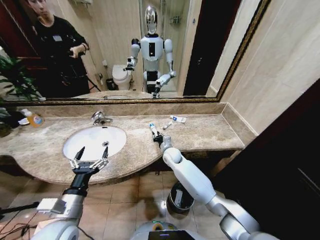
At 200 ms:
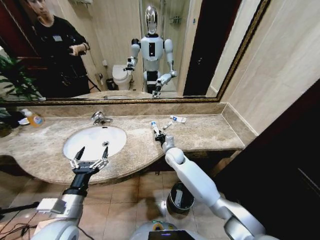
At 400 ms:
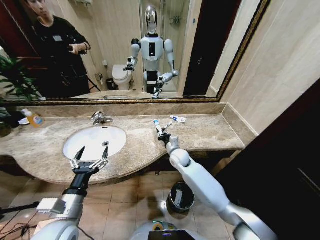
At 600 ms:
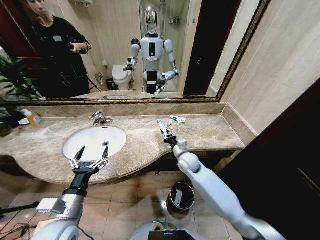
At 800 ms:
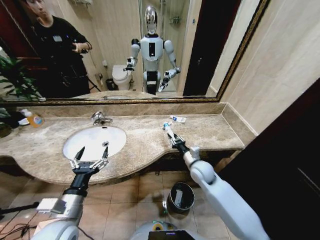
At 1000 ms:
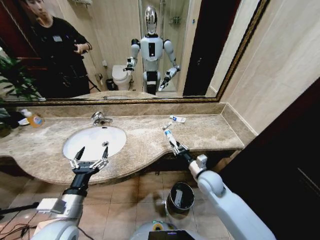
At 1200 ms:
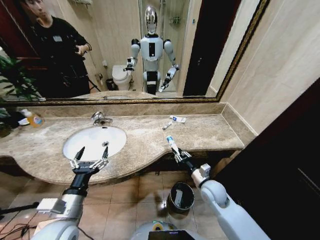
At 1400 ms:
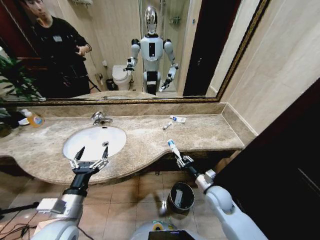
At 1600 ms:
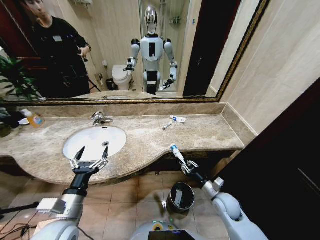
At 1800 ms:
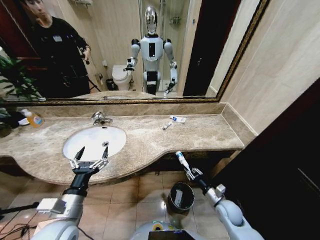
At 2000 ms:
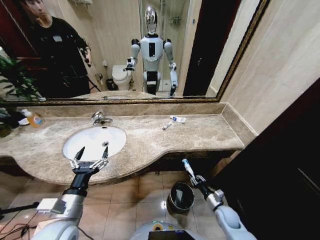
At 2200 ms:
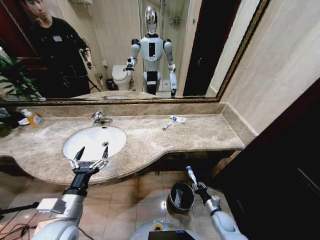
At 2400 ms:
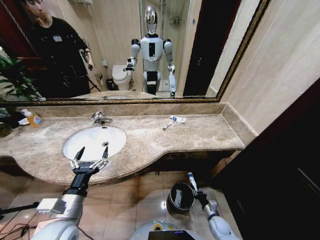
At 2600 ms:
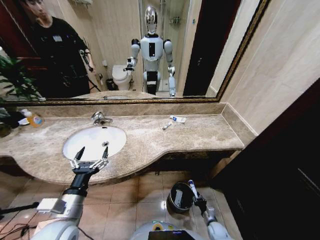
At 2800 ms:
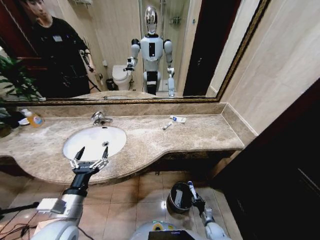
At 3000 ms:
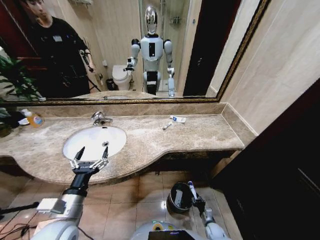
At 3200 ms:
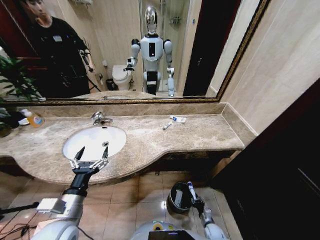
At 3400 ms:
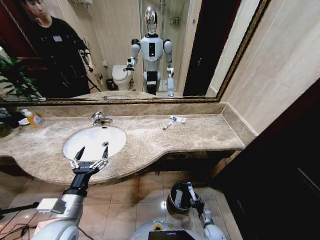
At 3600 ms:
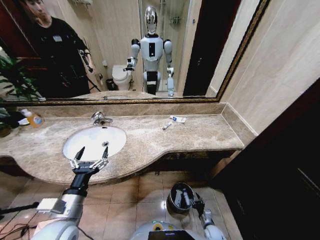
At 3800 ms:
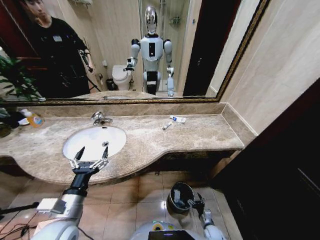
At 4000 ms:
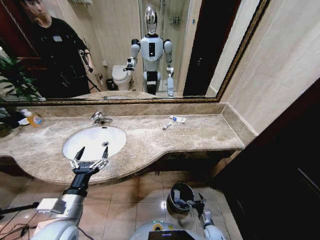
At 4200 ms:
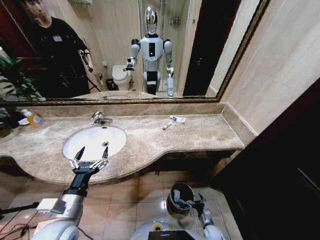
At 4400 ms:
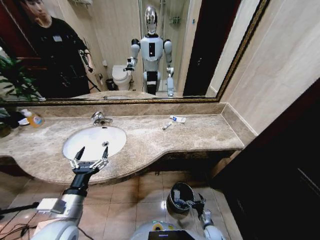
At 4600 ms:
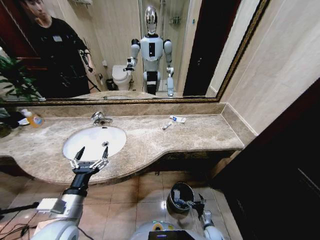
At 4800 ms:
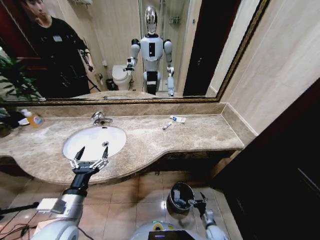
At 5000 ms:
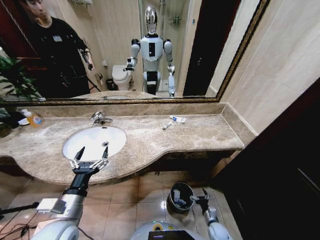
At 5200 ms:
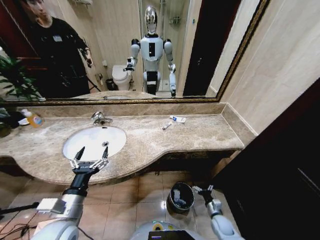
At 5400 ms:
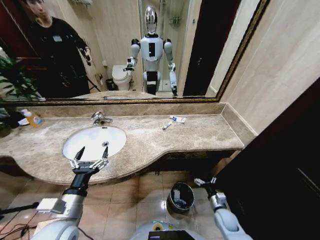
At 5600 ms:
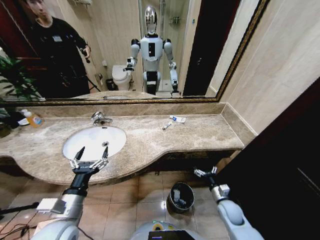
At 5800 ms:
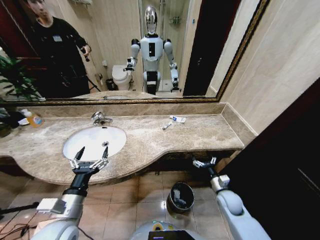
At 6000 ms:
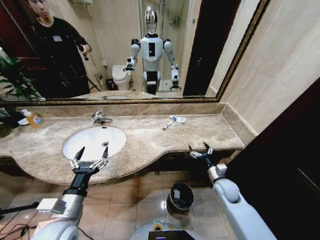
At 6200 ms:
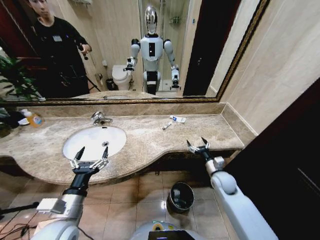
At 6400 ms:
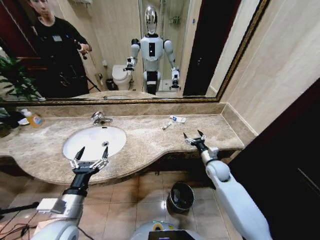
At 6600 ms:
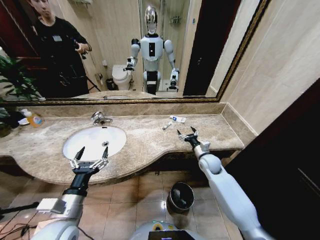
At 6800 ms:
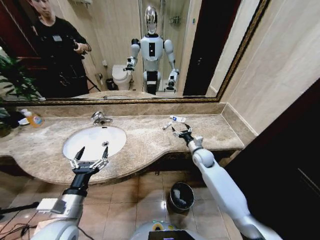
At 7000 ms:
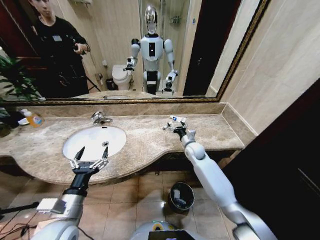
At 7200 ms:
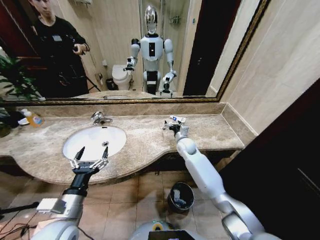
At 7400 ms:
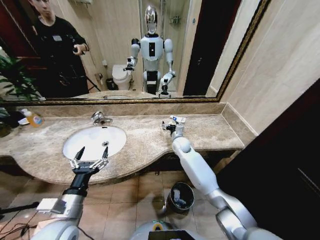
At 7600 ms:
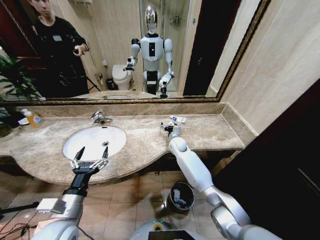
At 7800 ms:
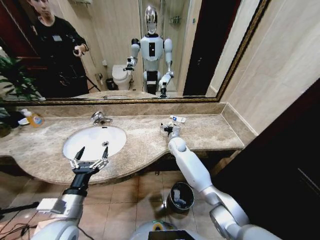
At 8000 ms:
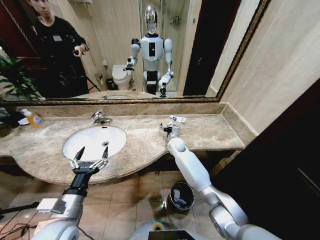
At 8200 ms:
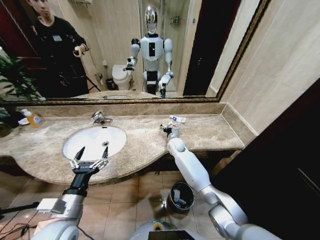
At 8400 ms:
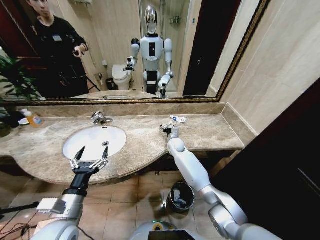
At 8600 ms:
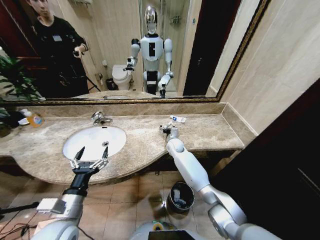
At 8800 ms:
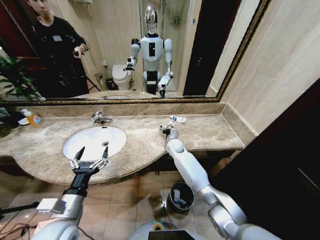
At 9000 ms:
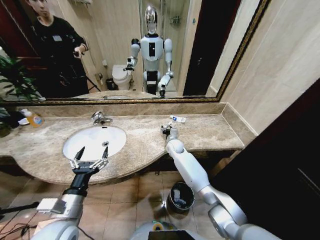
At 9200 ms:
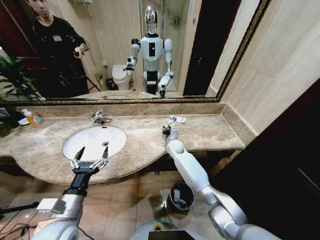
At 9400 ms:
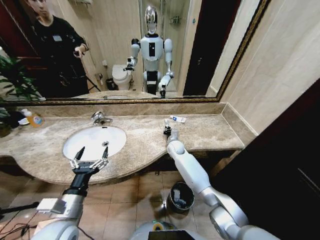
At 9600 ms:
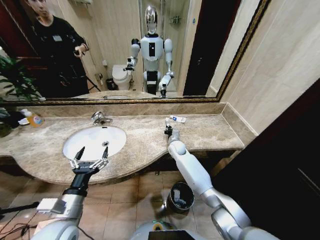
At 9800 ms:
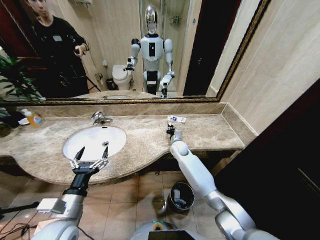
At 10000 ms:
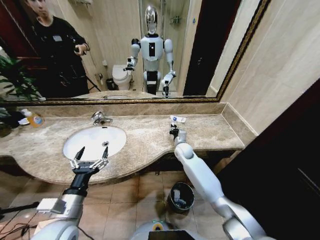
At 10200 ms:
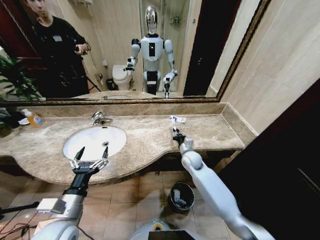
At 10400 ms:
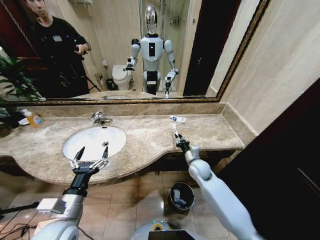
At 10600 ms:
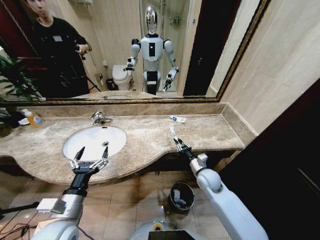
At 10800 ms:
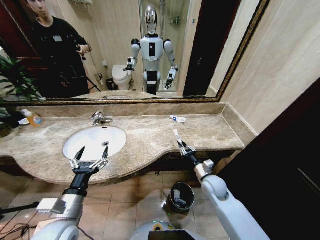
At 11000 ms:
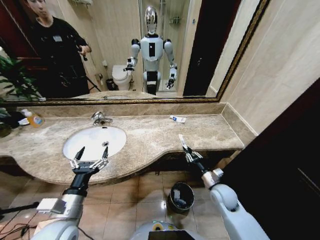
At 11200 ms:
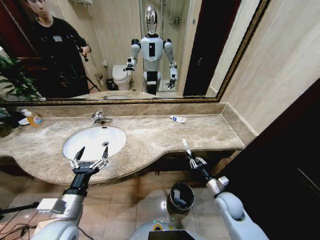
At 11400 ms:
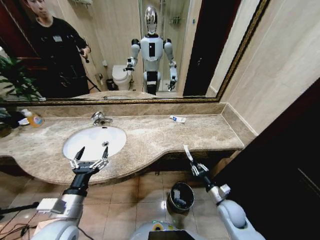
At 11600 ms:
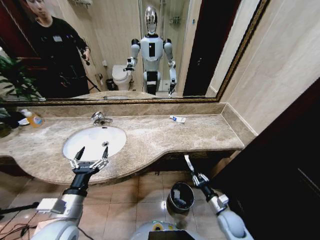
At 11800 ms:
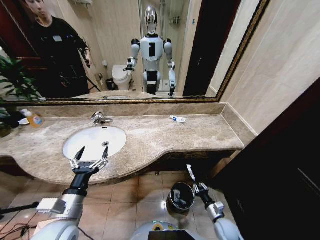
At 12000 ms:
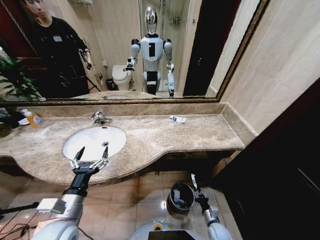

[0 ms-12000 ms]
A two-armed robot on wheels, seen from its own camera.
Task of the whole recording: Pick up the trash from the sink and place it in the trash bin.
0 ms to 1600 ms: The right gripper travels backward and to the right by approximately 30 cm.
1600 ms to 3000 ms: The right gripper shifts about 30 cm downward.
3000 ms to 4400 ms: The right gripper opens its fingers.
4400 ms to 6000 ms: The right gripper moves upward and forward, about 35 cm.
6000 ms to 7600 ms: The right gripper shifts some 30 cm forward and to the left.
7600 ms to 9000 ms: The grippers move only a little.
9000 ms to 10400 ms: The right gripper is displaced backward and to the right by some 15 cm, and closes.
10400 ms to 12000 ms: The right gripper shifts about 35 cm downward and backward.

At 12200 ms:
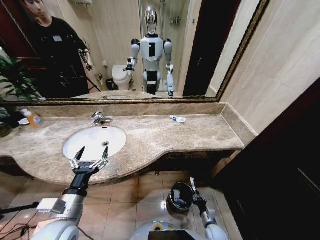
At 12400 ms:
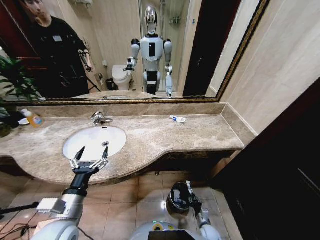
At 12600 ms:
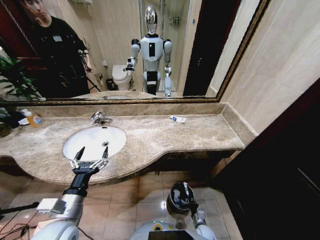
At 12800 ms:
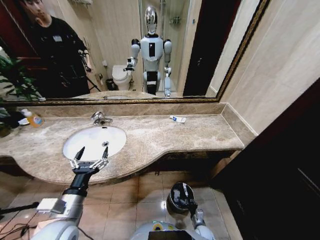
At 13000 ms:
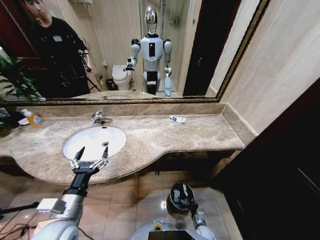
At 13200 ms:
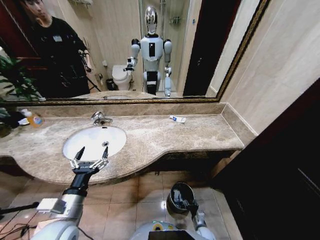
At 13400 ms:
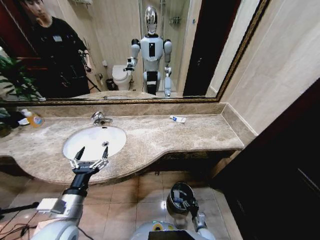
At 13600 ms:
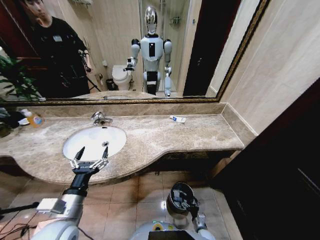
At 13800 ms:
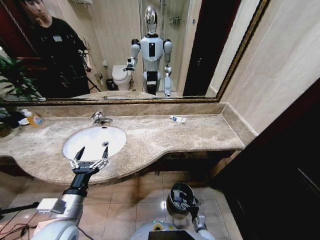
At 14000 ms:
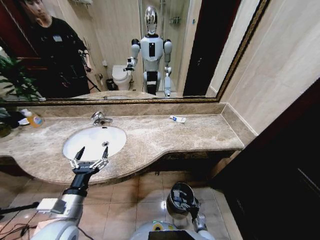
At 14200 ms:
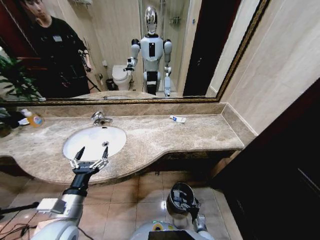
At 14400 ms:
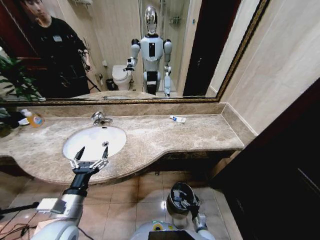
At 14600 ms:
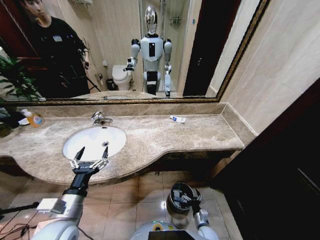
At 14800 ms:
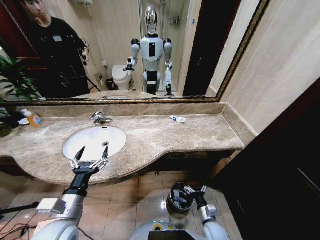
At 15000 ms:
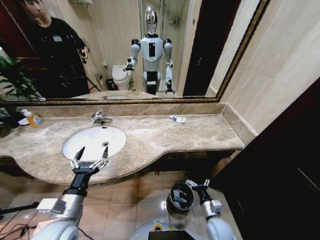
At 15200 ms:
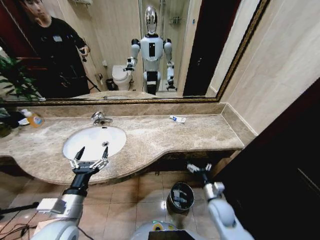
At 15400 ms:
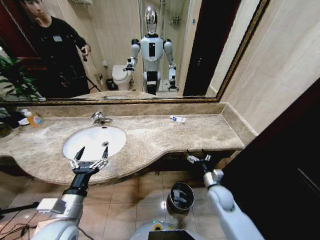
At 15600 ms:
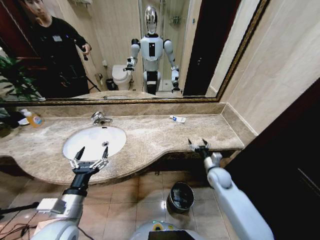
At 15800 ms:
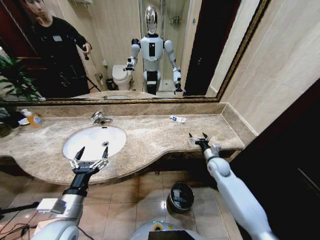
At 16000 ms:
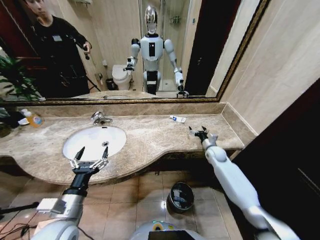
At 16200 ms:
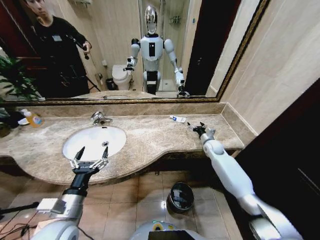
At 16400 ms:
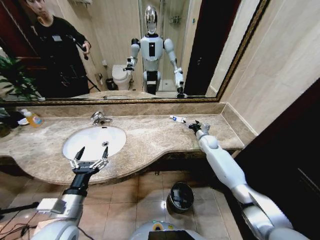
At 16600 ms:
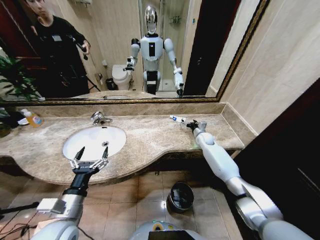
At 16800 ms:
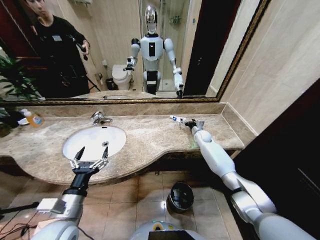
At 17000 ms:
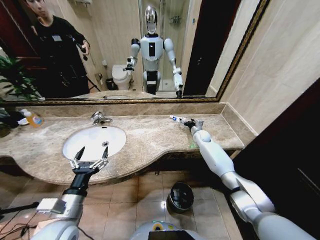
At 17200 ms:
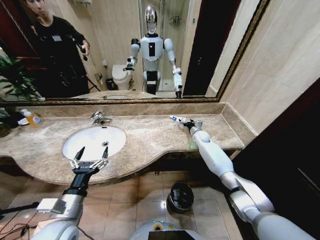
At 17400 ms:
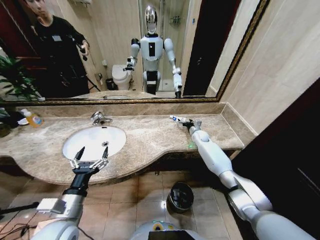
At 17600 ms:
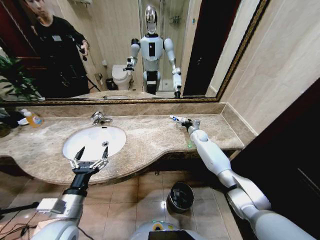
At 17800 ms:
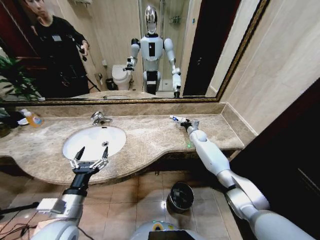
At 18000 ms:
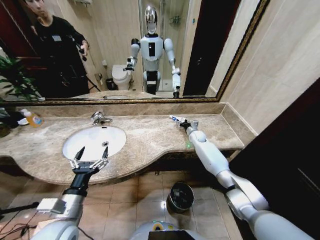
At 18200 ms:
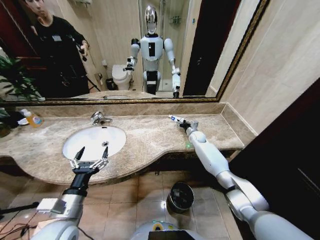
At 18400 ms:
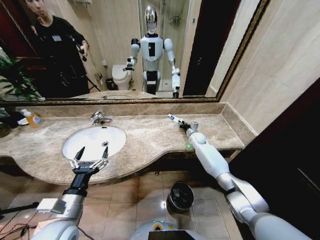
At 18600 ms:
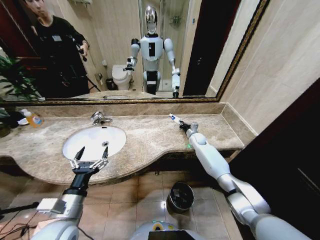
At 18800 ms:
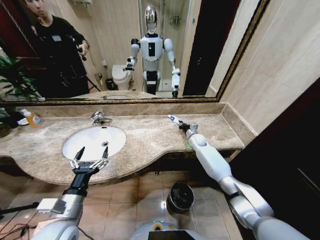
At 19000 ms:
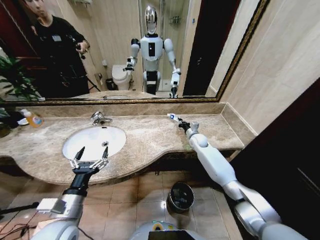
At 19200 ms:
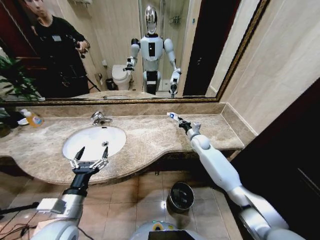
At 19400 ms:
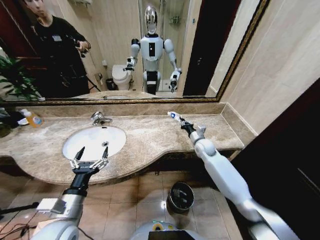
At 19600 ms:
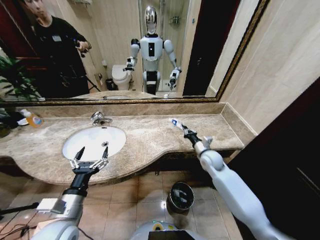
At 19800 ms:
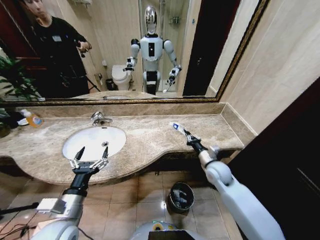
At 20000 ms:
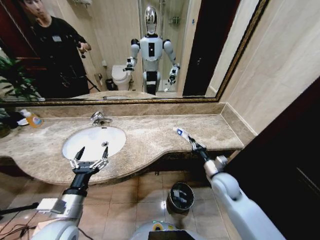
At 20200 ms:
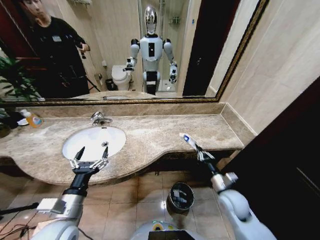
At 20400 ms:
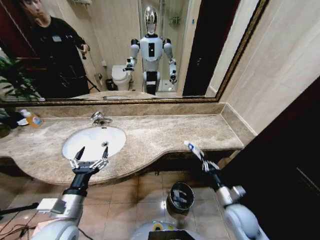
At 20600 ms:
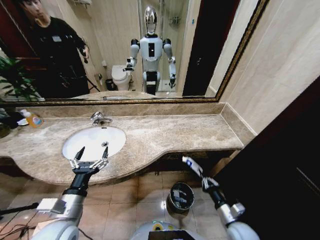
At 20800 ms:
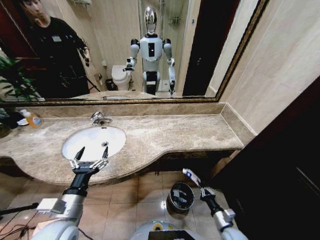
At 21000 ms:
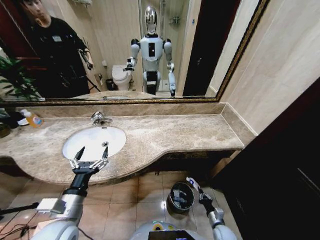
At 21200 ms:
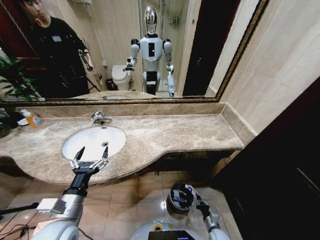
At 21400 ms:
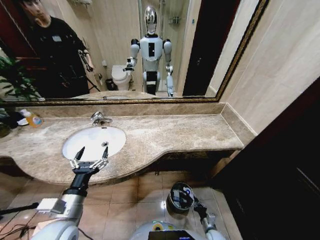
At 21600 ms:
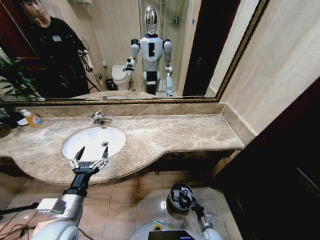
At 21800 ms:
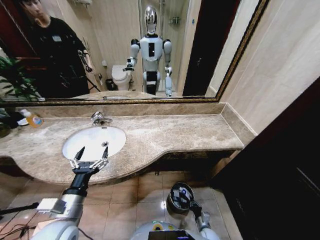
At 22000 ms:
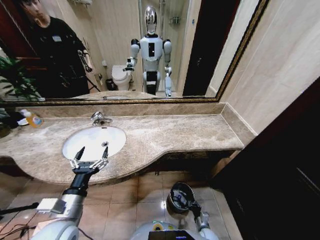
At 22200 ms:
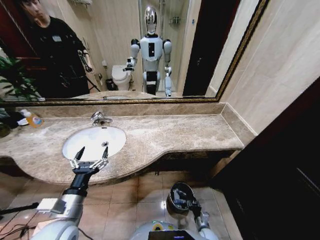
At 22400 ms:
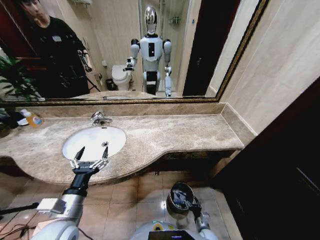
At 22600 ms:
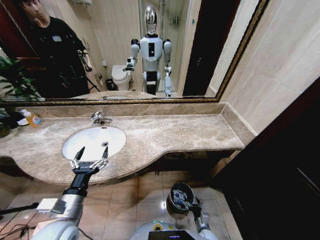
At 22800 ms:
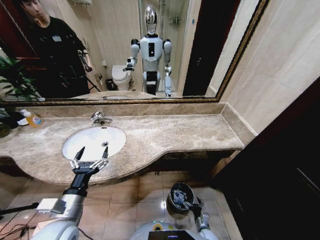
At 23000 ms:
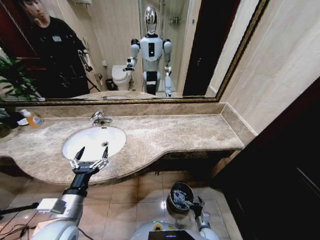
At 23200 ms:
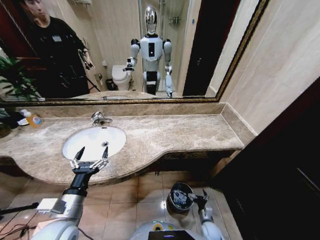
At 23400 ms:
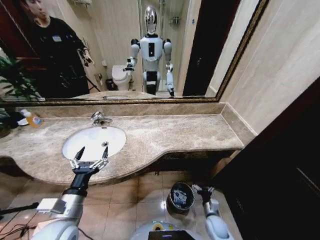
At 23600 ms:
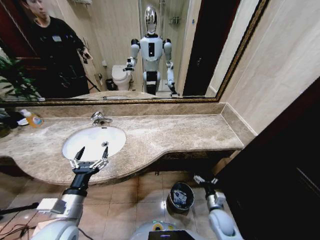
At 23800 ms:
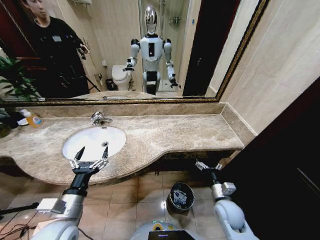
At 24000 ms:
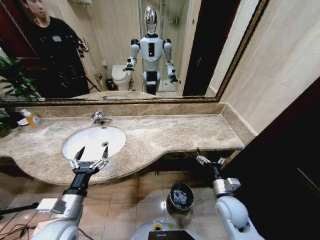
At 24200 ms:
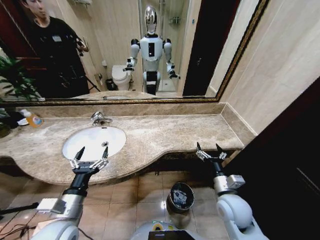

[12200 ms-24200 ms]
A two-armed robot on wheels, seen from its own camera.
Task of the whole recording: Pick up the trash from the sink and place it in the trash bin.
12200 ms to 13800 ms: The right gripper changes place by about 5 cm, and opens up.
13800 ms to 15200 ms: The right gripper is displaced upward by about 25 cm.
15200 ms to 16600 ms: The right gripper goes some 35 cm forward.
16600 ms to 18200 ms: The right gripper closes its fingers.
18200 ms to 19800 ms: The right gripper travels backward by approximately 25 cm, and closes.
19800 ms to 21200 ms: The right gripper goes about 40 cm downward and backward.
21200 ms to 22600 ms: The right gripper travels to the left by approximately 5 cm, and opens up.
22600 ms to 24200 ms: The right gripper goes roughly 35 cm upward.
